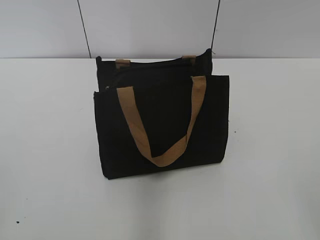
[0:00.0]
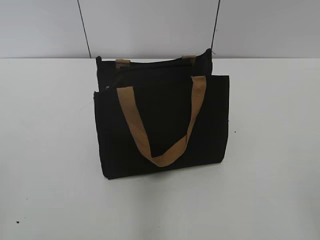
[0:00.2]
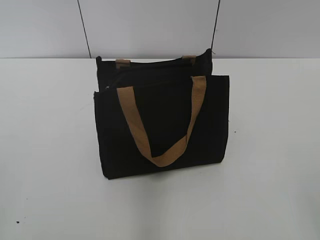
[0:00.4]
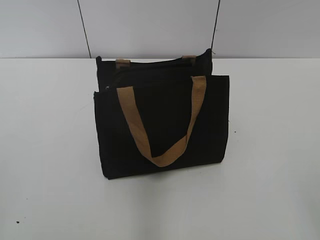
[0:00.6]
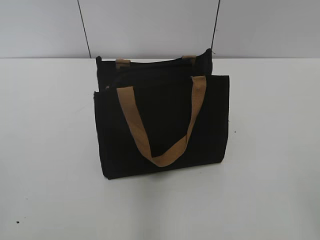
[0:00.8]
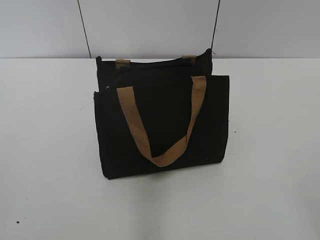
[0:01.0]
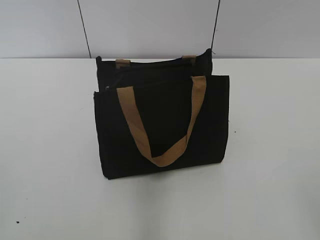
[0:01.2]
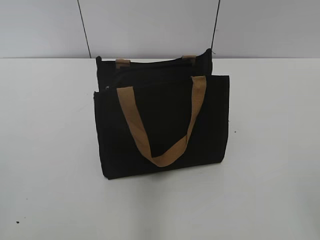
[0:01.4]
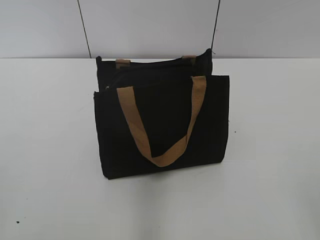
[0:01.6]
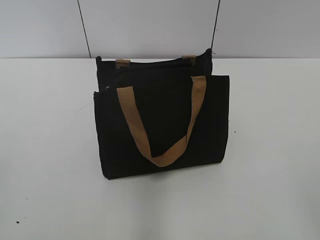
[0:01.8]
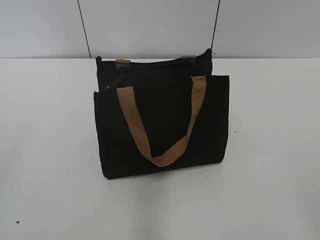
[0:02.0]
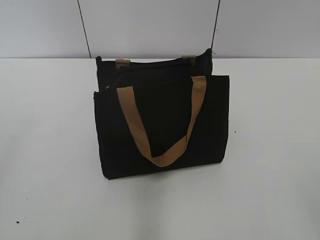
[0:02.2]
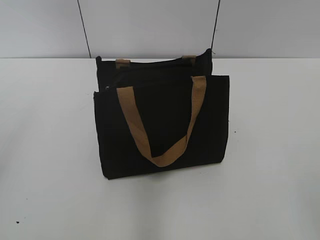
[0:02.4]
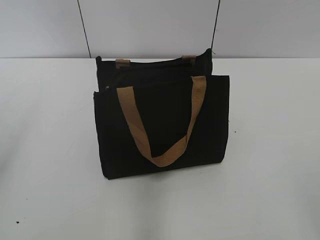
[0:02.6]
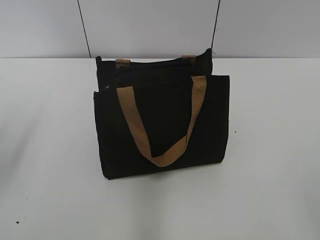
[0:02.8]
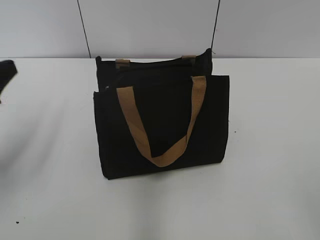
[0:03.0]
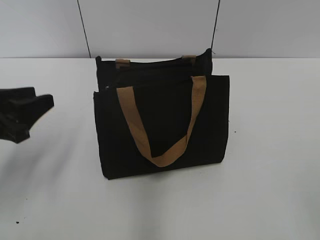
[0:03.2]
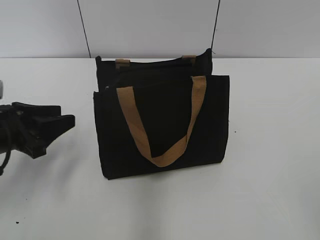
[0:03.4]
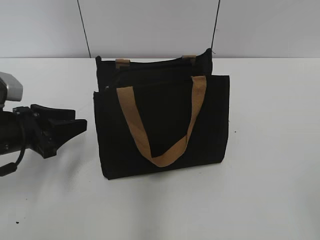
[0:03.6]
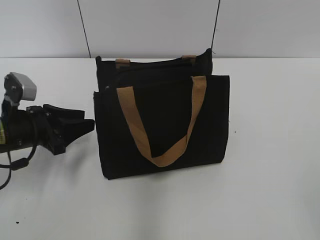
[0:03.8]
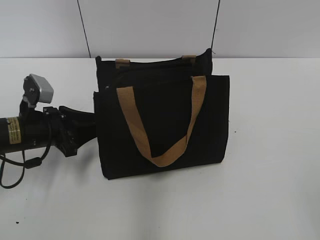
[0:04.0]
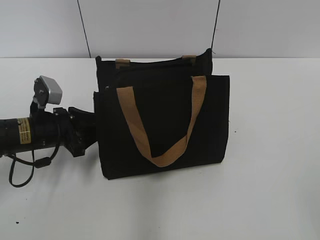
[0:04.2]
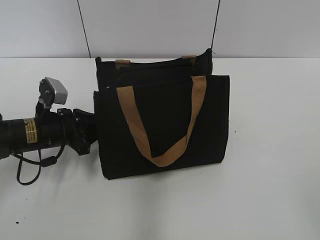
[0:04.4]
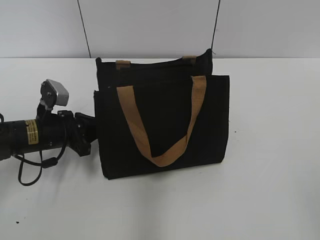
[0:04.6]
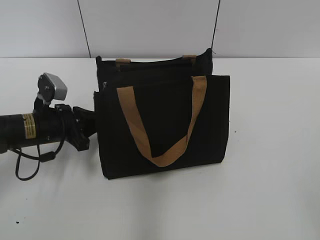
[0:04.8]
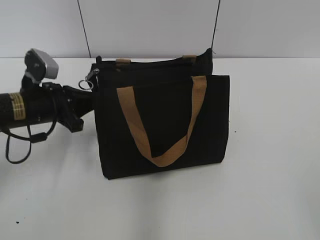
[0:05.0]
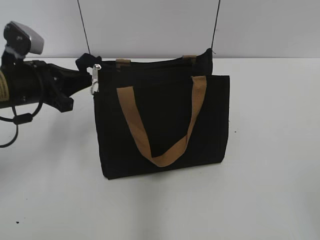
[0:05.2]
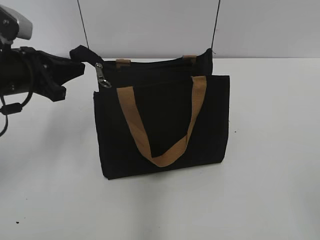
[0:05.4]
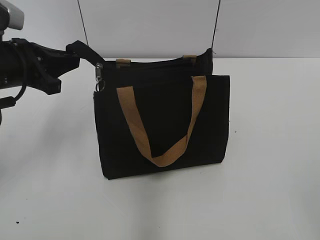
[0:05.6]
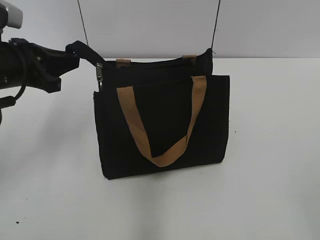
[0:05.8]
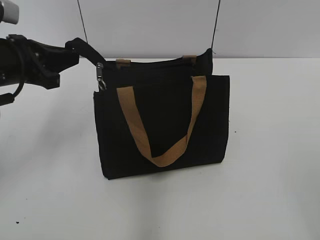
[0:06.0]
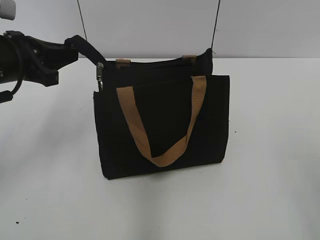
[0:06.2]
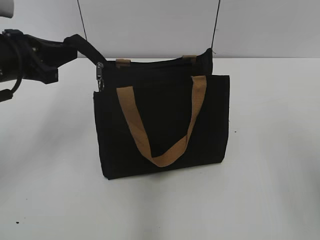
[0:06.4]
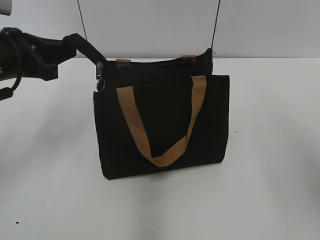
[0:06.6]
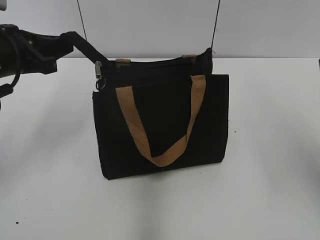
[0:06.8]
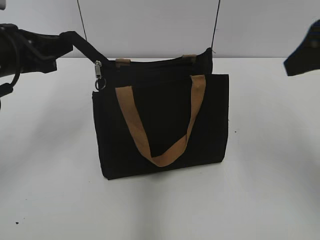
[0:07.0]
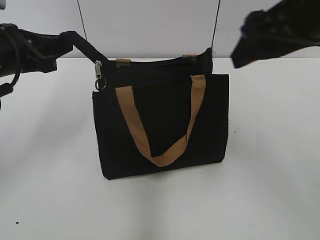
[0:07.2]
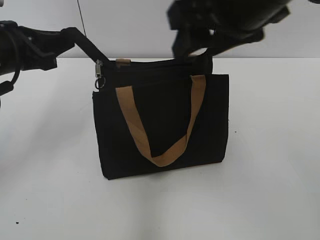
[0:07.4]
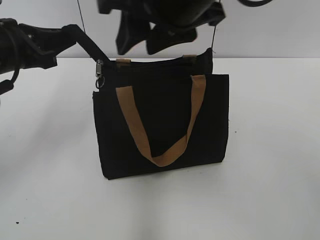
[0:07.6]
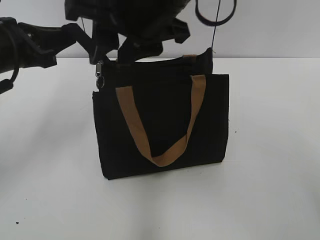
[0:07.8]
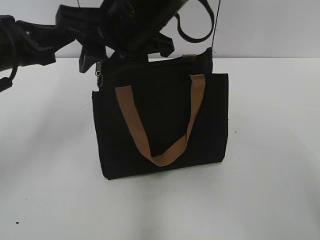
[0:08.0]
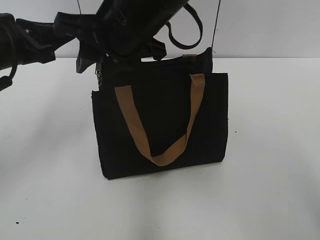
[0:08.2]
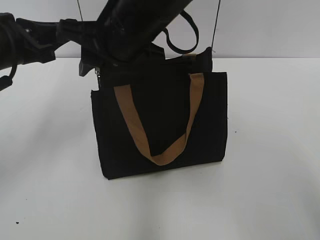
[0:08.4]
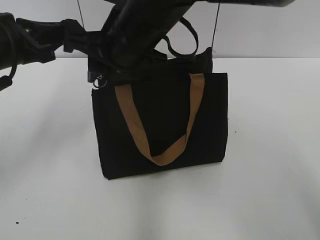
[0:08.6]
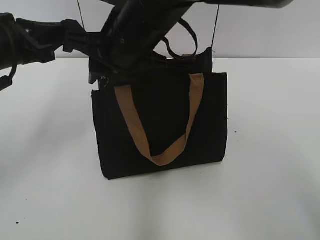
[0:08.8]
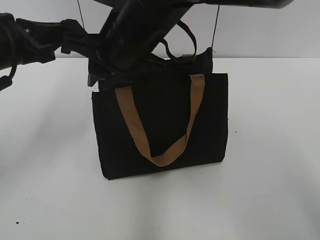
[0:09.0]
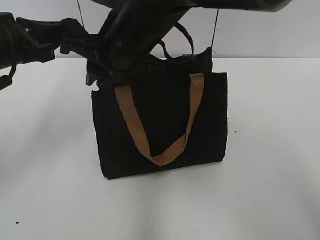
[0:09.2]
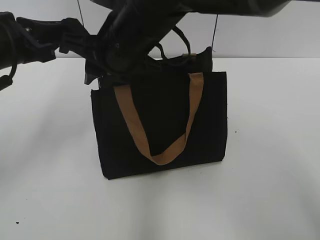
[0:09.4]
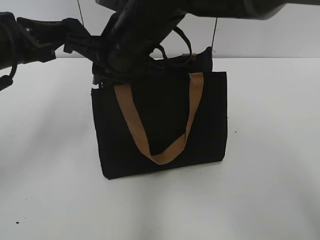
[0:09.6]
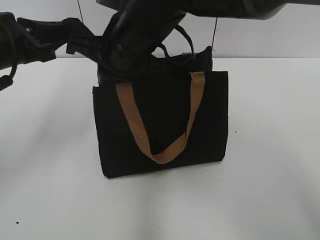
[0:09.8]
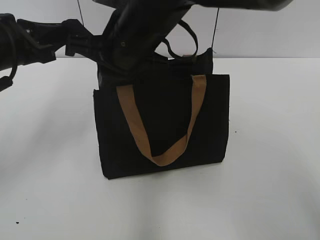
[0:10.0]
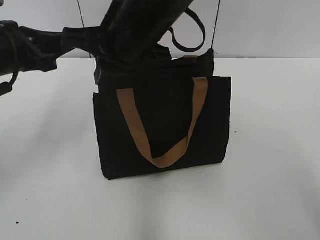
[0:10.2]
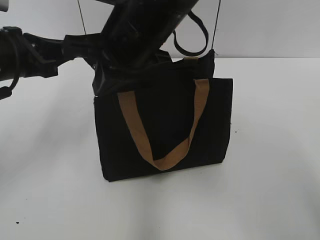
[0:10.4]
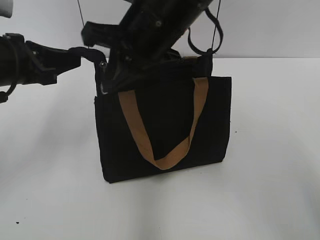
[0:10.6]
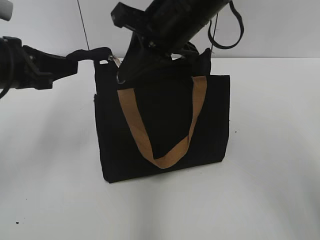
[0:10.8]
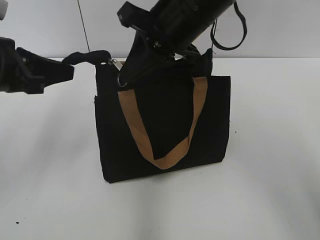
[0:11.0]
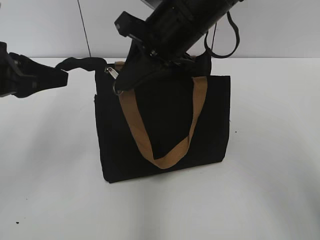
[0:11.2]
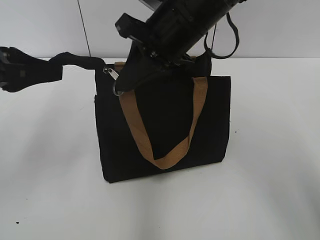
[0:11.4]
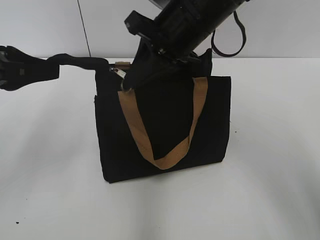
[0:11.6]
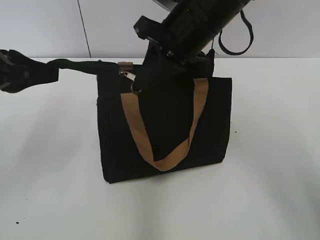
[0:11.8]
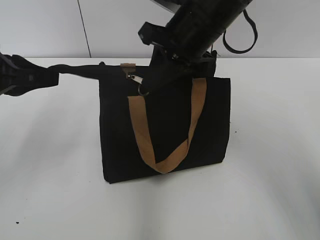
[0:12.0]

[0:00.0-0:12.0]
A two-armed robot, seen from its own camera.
0:01.6 to 0:03.0: The left gripper is displaced forward by roughly 20 cm.
0:03.0 to 0:04.4: The left gripper shifts approximately 20 cm downward, forward and to the right.
0:04.4 to 0:06.0: The left gripper goes some 15 cm upward, and closes.
0:06.0 to 0:07.6: The right gripper is displaced forward and to the left by approximately 35 cm.
0:07.6 to 0:09.0: The right gripper travels downward, to the left and forward by approximately 10 cm.
0:09.0 to 0:10.4: The right gripper closes its fingers.
0:10.4 to 0:12.0: The right gripper shifts about 10 cm to the right and forward.

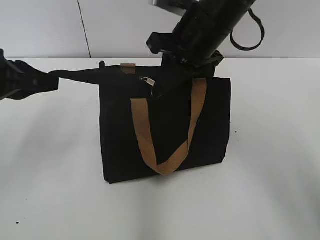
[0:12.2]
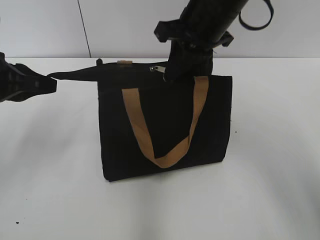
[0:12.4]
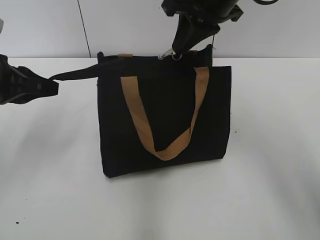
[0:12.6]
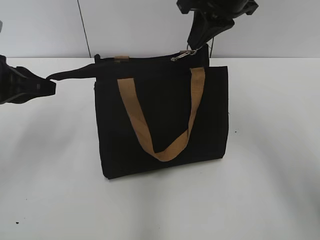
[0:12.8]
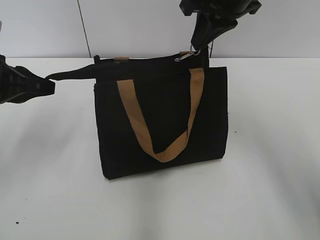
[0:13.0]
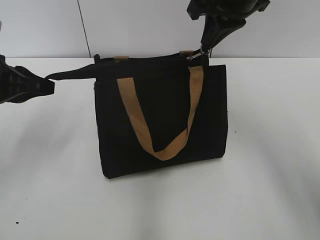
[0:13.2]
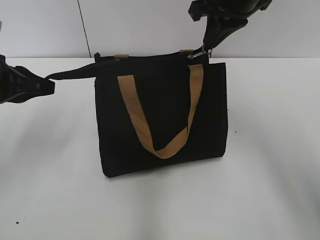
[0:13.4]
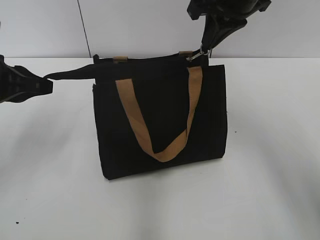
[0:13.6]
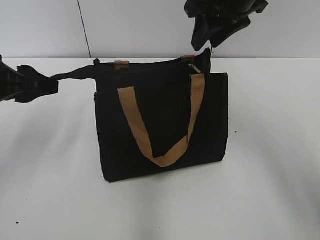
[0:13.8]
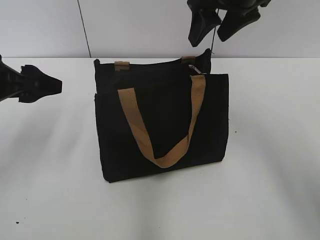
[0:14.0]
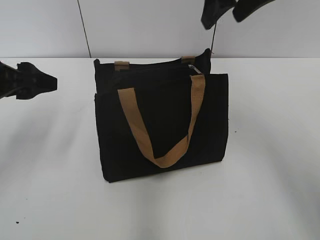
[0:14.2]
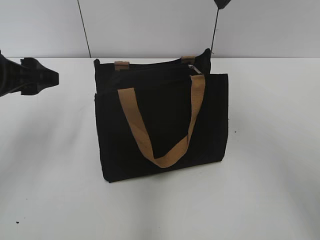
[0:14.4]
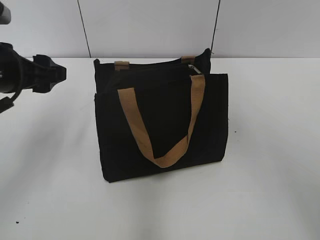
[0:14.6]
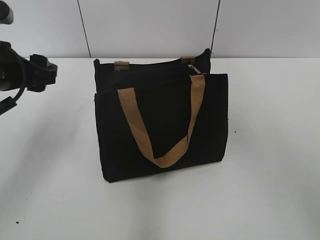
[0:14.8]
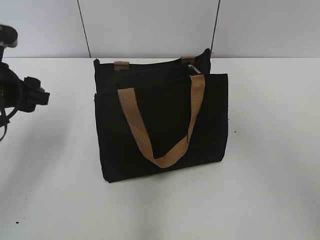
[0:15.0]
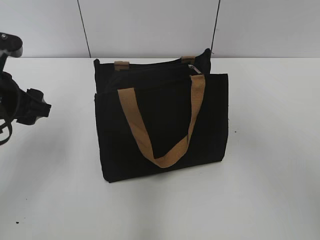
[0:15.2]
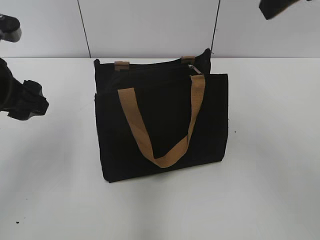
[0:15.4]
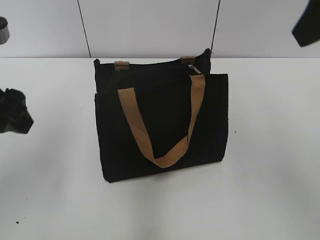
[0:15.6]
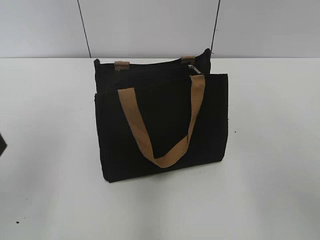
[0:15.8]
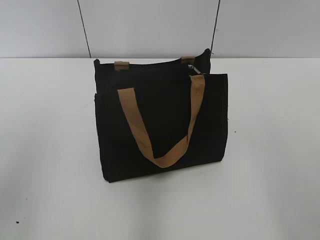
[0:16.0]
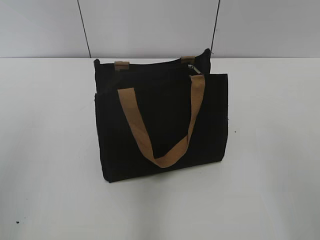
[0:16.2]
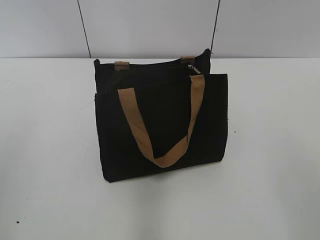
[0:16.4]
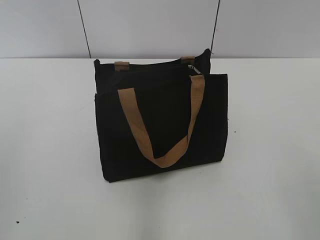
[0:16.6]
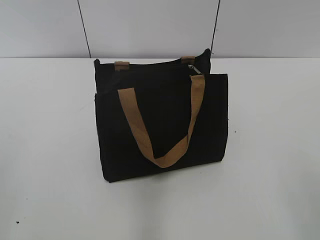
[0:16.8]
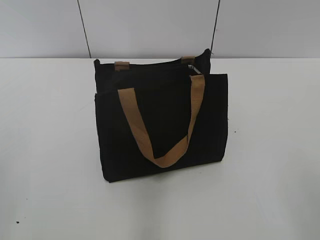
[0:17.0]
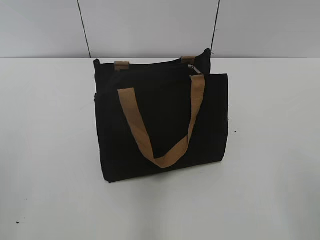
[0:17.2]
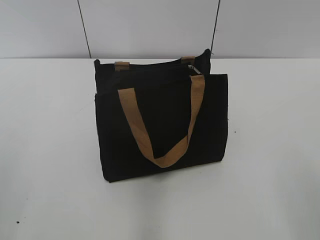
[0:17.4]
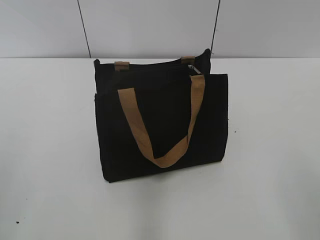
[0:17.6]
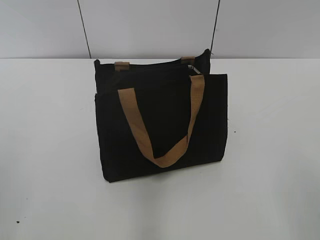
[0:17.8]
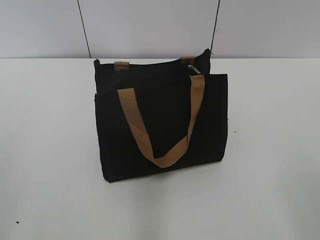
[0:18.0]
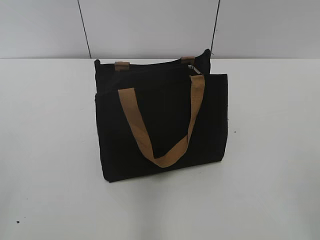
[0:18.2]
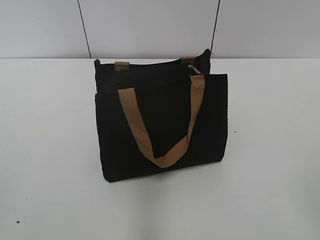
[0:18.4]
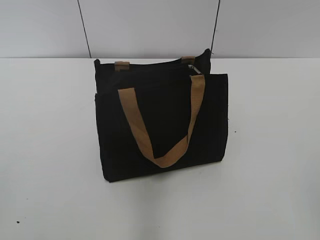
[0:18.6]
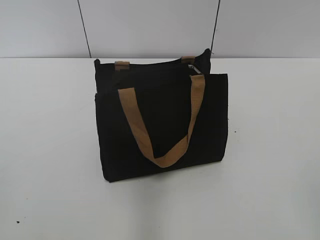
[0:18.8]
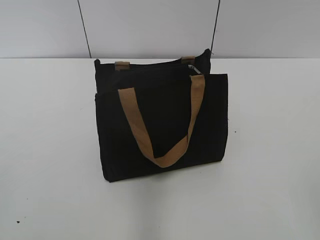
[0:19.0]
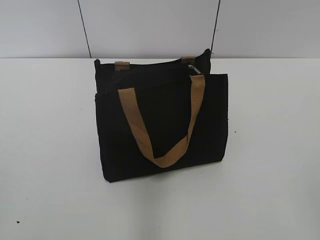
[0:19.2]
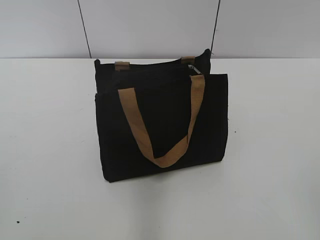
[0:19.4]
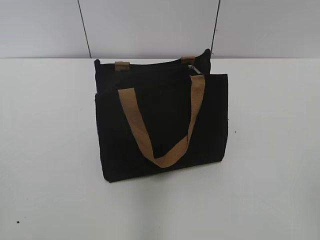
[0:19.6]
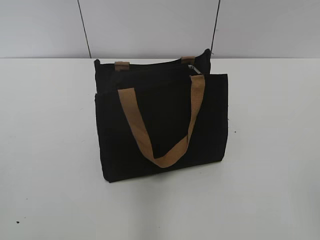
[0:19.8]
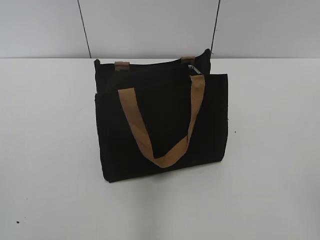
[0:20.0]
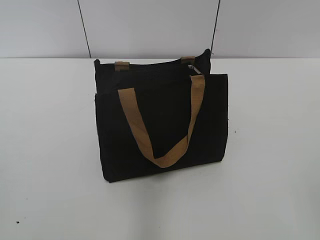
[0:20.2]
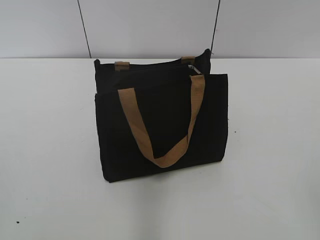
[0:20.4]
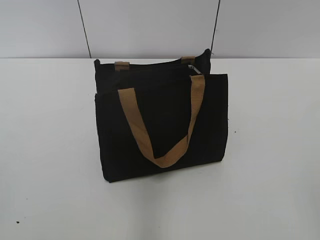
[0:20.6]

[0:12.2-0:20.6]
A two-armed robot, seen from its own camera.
0:12.2 to 0:13.6: The right gripper shifts roughly 5 cm to the right.
0:13.6 to 0:15.0: The right gripper is displaced upward and backward by roughly 15 cm, and opens its fingers, while the left gripper opens up.
0:15.0 to 0:16.4: The left gripper is displaced backward and upward by roughly 20 cm.
0:19.2 to 0:20.6: Neither gripper changes place.

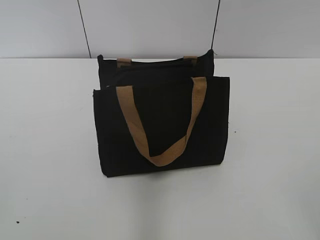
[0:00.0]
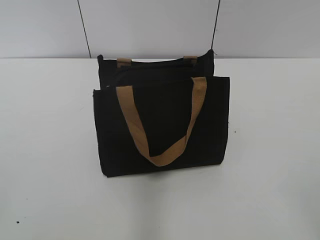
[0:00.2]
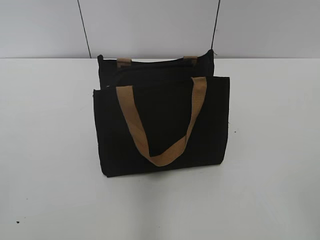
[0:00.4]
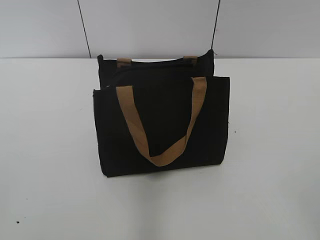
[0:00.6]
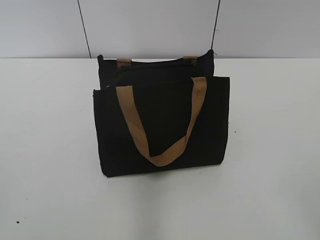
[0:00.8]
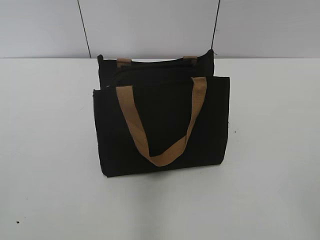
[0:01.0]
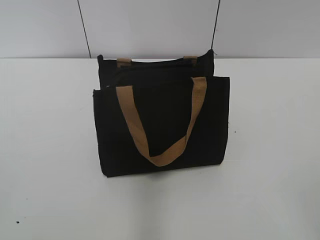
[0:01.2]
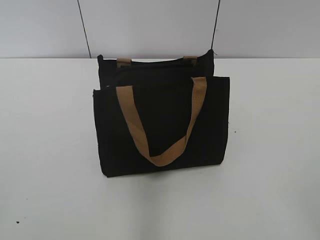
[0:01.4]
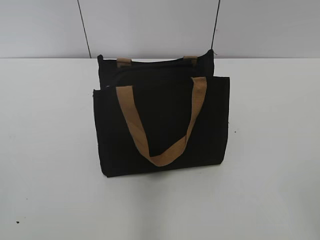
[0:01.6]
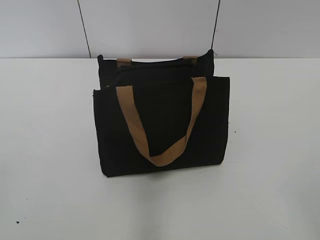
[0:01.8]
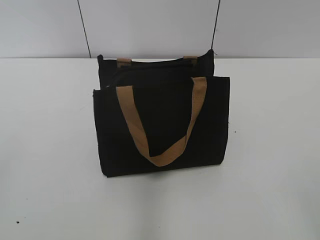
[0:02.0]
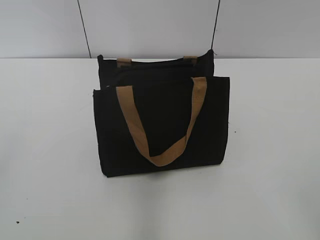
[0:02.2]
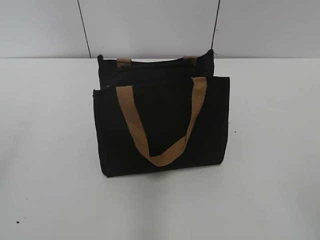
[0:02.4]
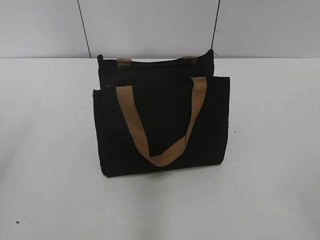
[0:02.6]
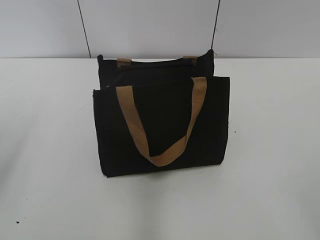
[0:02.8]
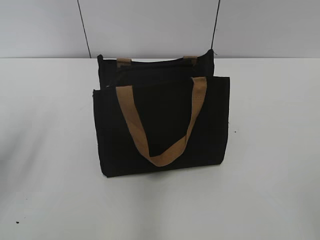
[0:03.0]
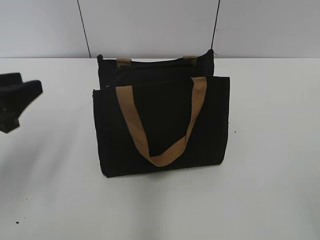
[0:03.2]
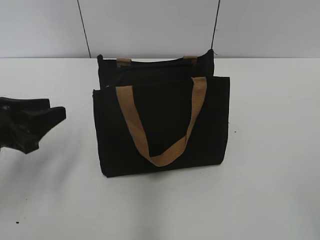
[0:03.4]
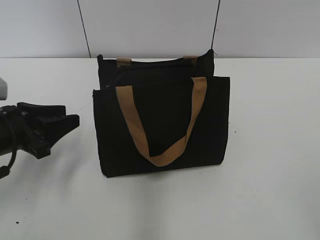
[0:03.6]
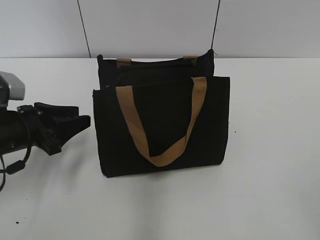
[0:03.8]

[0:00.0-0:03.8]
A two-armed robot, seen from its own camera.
0:02.6 to 0:03.8: The left gripper is displaced downward, forward and to the right by roughly 25 cm.
